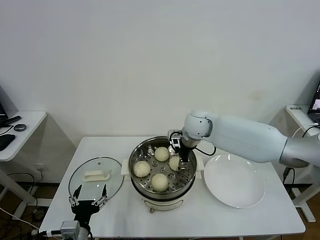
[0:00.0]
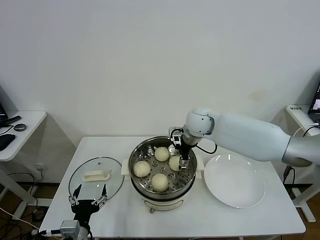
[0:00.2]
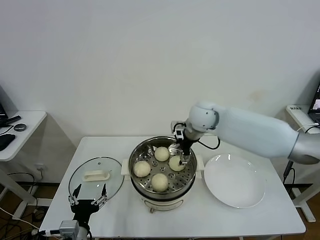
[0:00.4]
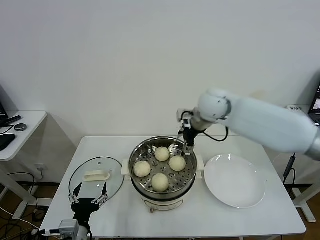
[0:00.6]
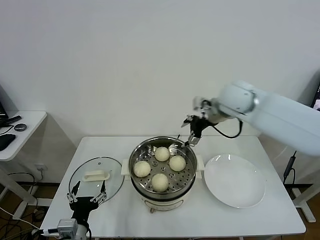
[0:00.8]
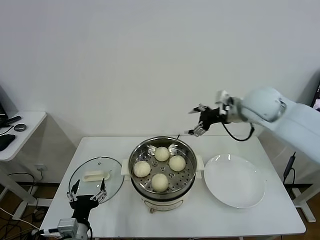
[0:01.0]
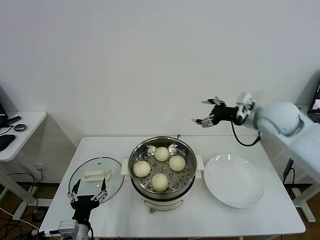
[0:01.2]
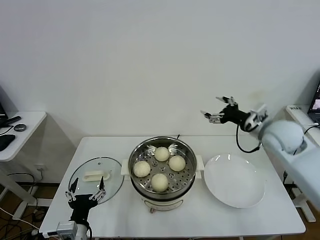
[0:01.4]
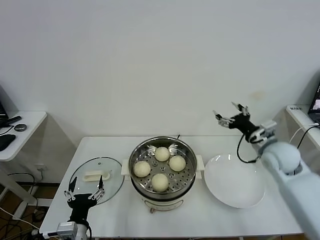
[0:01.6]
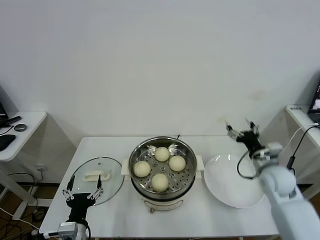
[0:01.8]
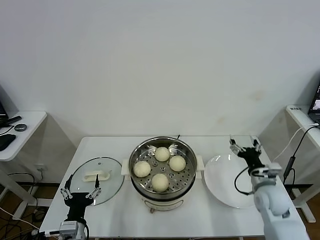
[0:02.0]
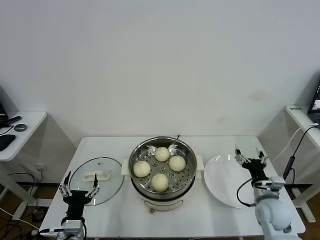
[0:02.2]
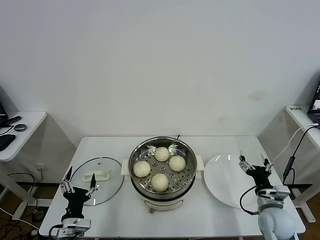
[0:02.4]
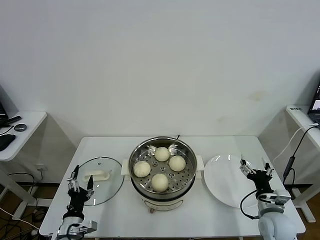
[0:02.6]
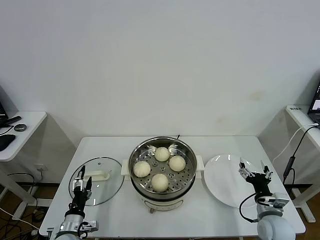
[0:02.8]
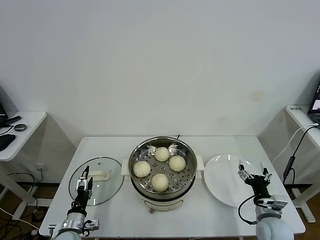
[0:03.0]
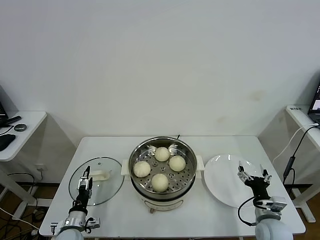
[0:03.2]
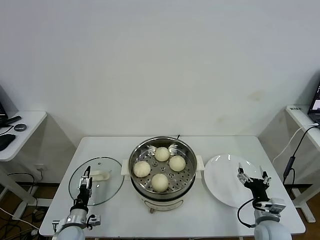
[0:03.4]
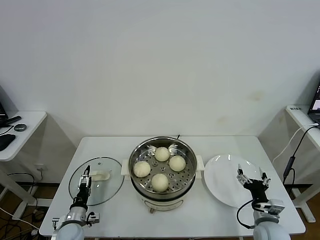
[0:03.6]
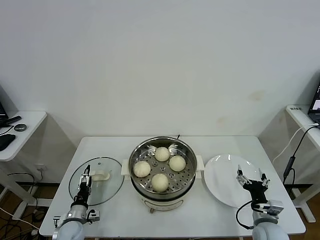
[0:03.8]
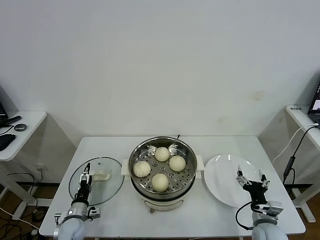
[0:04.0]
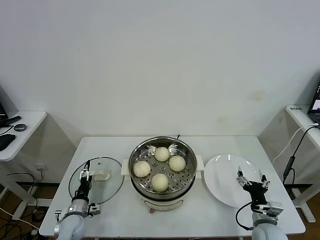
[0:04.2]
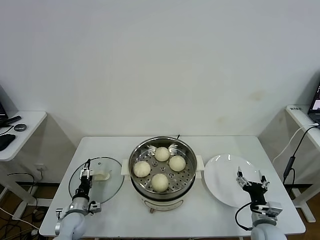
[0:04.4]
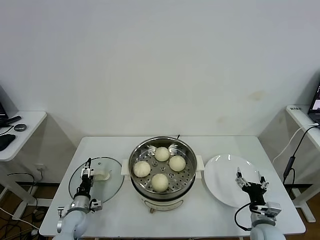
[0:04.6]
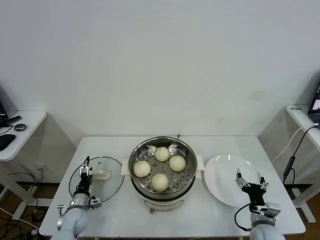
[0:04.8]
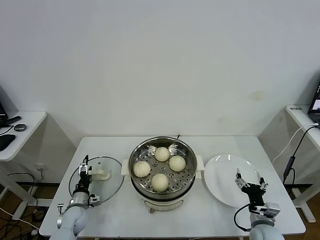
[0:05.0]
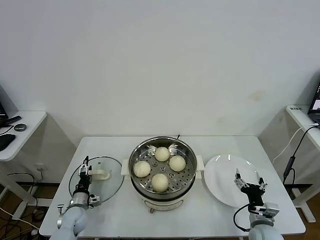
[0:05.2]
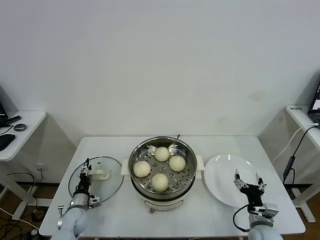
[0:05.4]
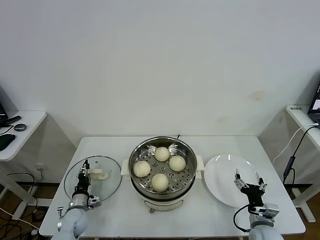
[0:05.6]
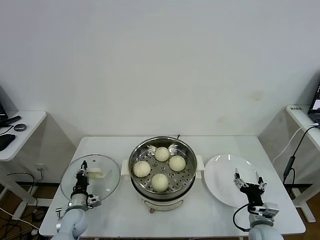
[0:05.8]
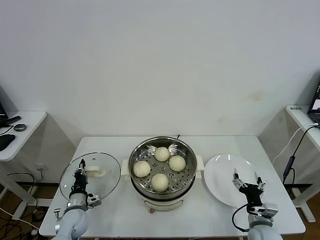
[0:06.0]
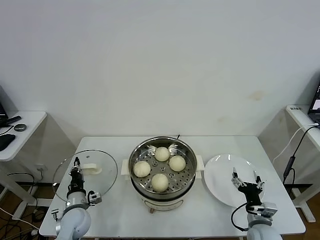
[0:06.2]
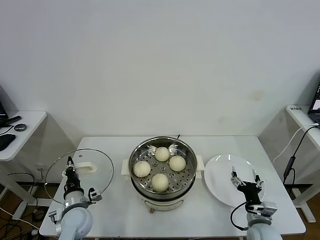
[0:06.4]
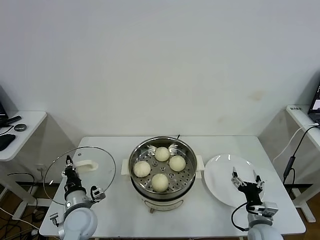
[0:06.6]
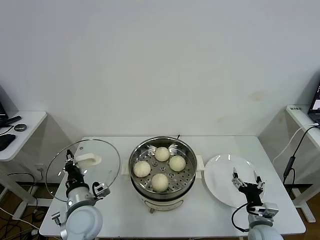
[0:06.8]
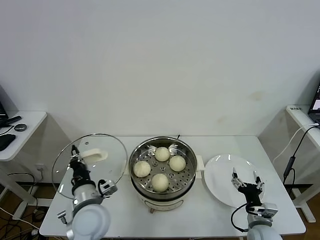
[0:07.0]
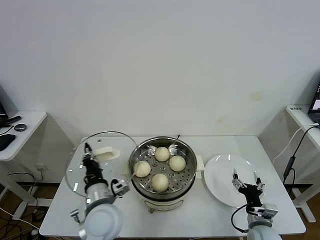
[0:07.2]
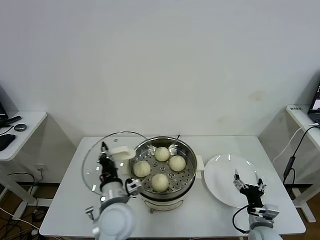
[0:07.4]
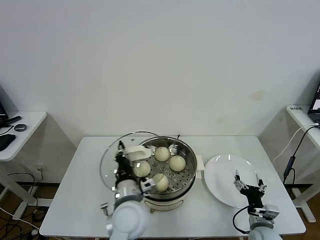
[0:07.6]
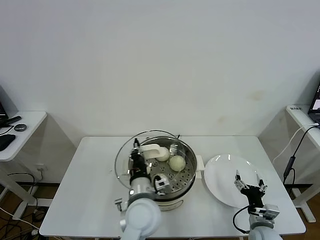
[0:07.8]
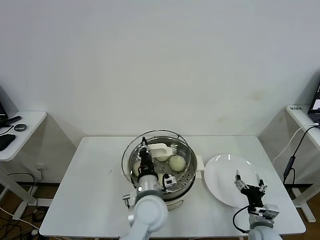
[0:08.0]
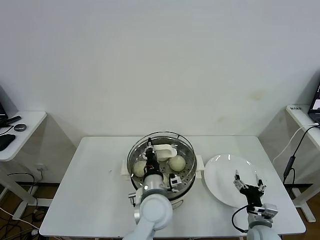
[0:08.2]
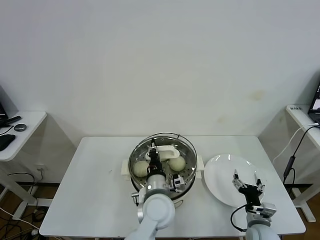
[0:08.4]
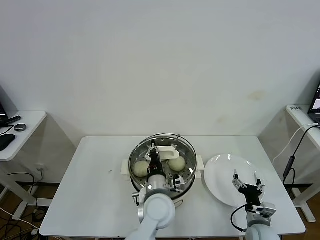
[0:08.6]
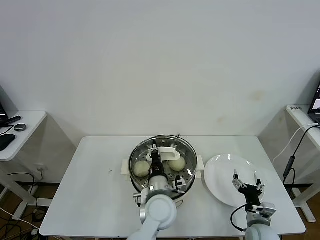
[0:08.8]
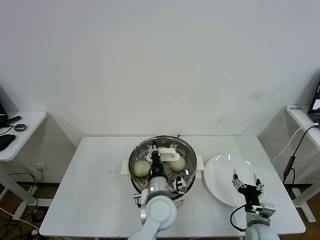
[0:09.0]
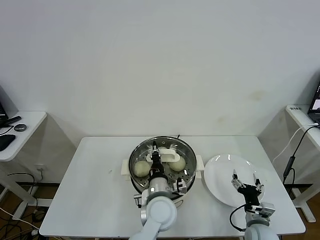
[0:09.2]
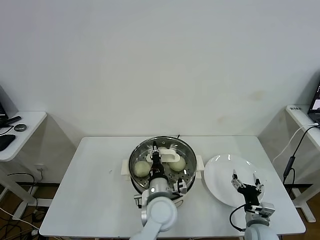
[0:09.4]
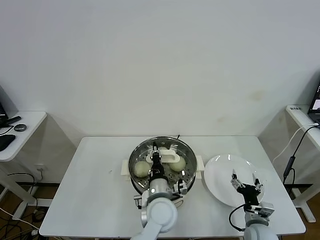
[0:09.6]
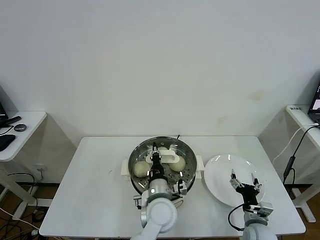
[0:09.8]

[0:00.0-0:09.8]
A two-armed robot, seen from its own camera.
Task of the whole recording: take steamed baozi put them in steamer.
Step, 0:00.6 to 0:06.0: Grasp the pot lid with left gripper.
0:00.0 to 0:01.4: The right gripper goes approximately 20 cm to the right, and opens.
0:01.4 to 0:02.8: The right gripper goes about 30 cm downward and backward; the left gripper shifts approximately 15 cm downward, to the left and forward.
0:02.8 to 0:04.2: The left gripper goes roughly 10 cm forward and downward.
0:04.2 to 0:05.6: The left gripper closes up.
0:05.6 to 0:07.0: The left gripper shifts approximately 25 cm upward and to the right, and closes.
0:07.0 to 0:08.4: The left gripper goes approximately 20 cm to the right.
0:08.4 to 0:09.8: The grippers make only small movements.

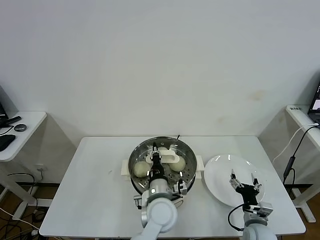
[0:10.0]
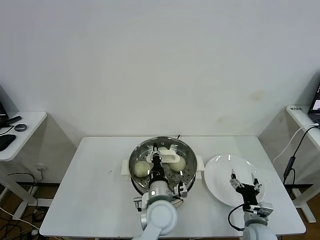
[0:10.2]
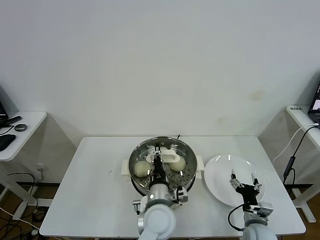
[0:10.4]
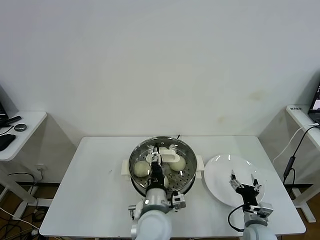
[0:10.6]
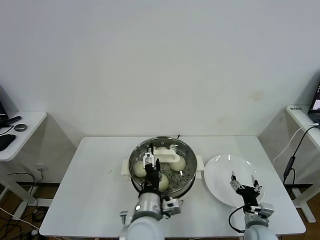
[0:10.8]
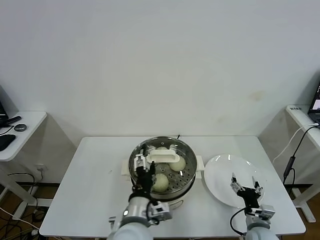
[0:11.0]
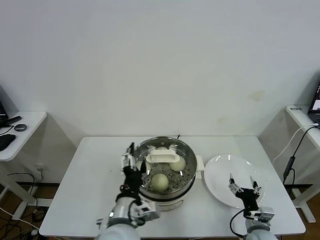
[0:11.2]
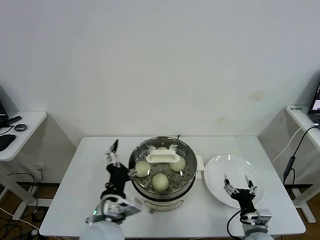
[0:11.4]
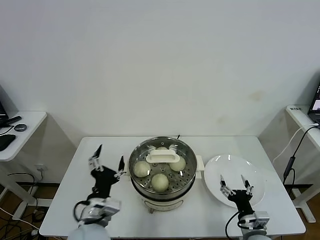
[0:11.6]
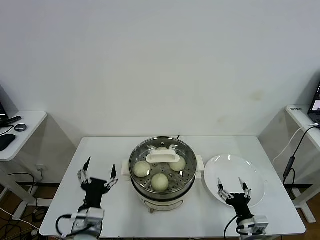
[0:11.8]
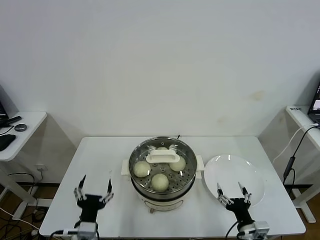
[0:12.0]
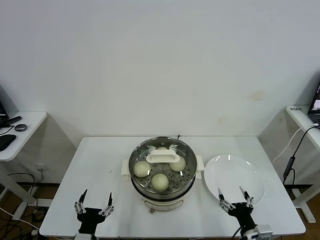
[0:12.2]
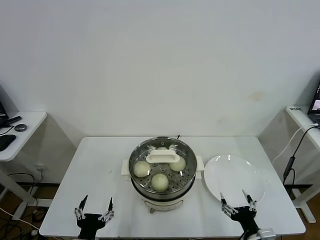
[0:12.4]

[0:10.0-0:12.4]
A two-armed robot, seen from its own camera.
Task of the whole recording: take steamed baozi put them in steamer.
0:10.0 to 0:11.2: The left gripper shifts approximately 15 cm backward, to the left and upward, and opens.
0:11.2 to 0:12.4: The left gripper is displaced to the left, downward and backward by about 20 cm. Meanwhile the right gripper moves backward, roughly 10 cm.

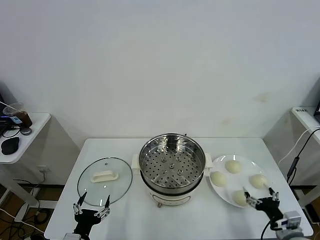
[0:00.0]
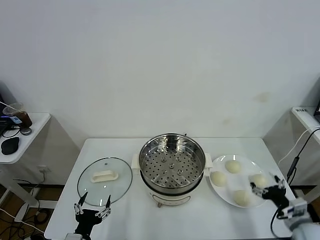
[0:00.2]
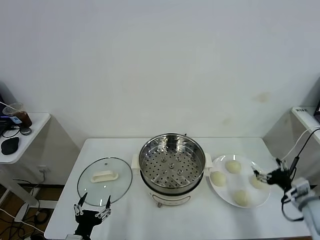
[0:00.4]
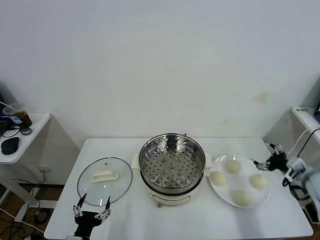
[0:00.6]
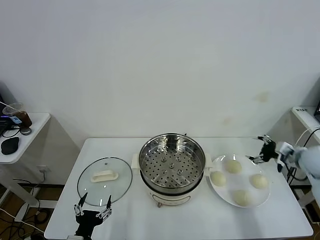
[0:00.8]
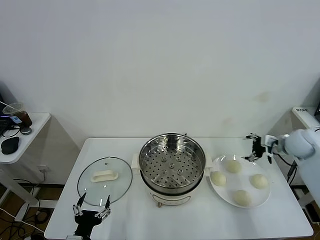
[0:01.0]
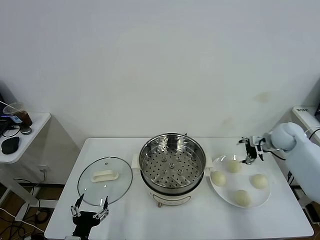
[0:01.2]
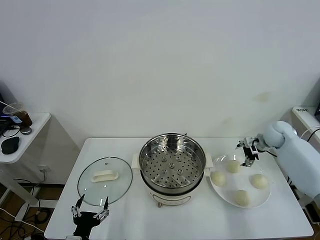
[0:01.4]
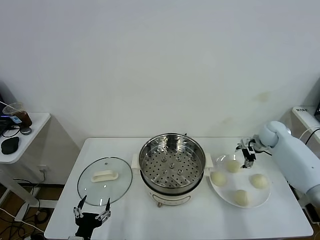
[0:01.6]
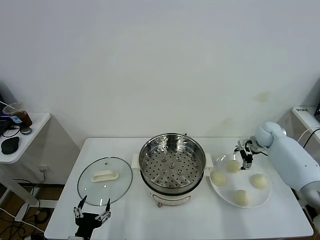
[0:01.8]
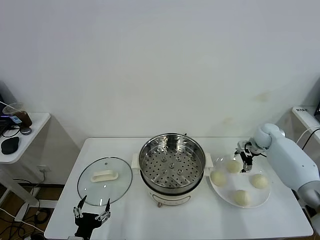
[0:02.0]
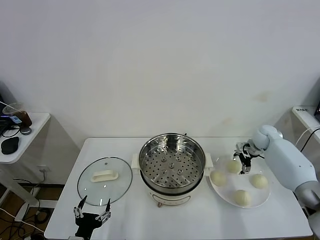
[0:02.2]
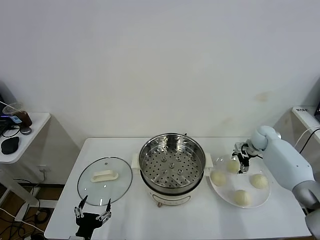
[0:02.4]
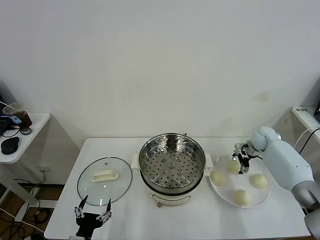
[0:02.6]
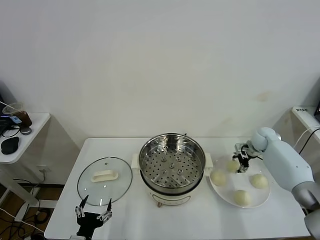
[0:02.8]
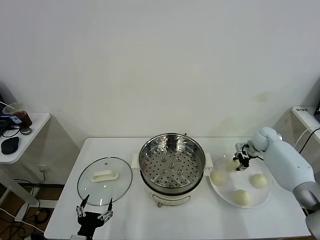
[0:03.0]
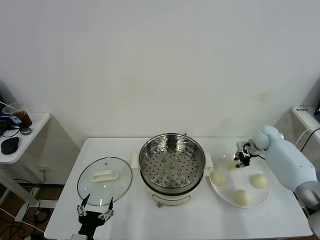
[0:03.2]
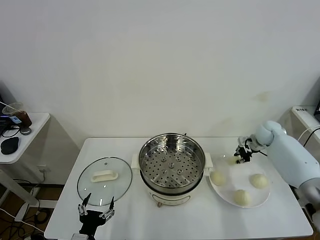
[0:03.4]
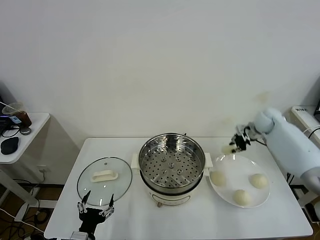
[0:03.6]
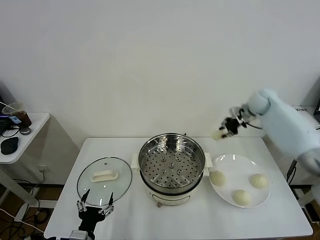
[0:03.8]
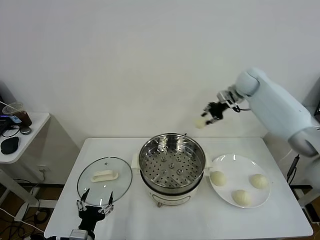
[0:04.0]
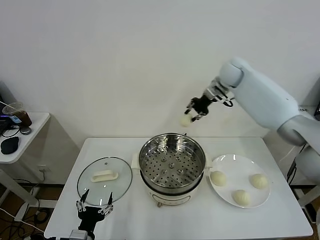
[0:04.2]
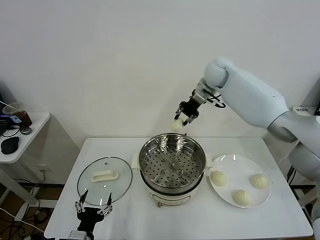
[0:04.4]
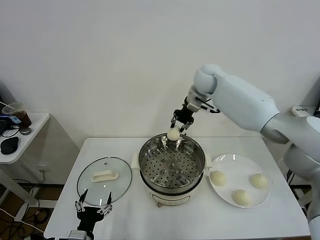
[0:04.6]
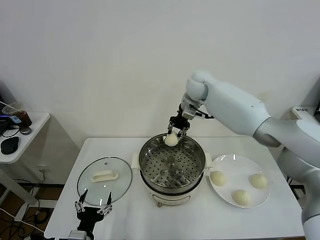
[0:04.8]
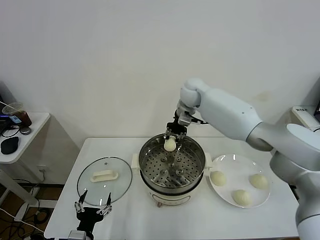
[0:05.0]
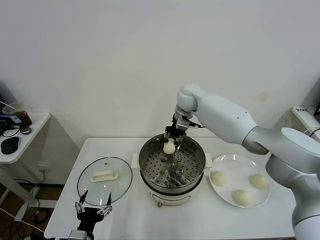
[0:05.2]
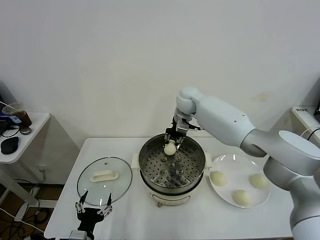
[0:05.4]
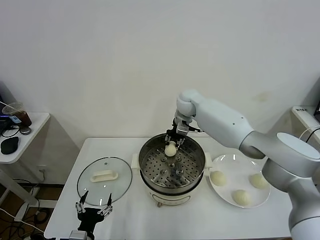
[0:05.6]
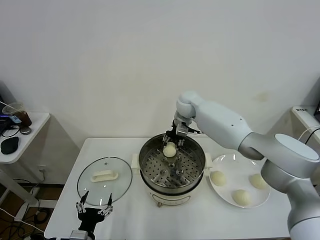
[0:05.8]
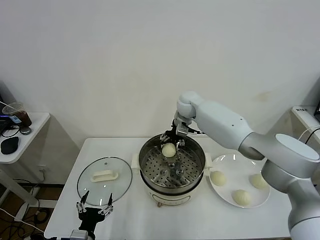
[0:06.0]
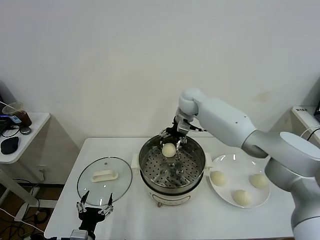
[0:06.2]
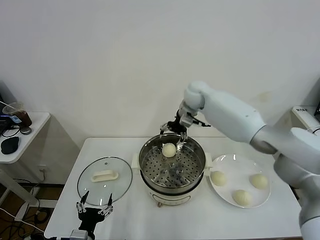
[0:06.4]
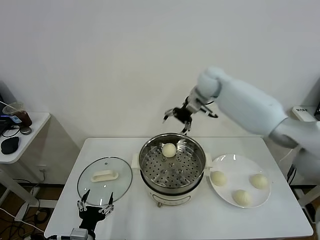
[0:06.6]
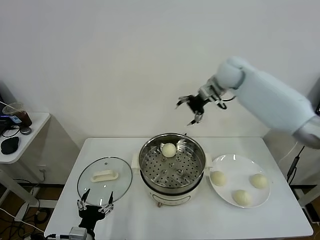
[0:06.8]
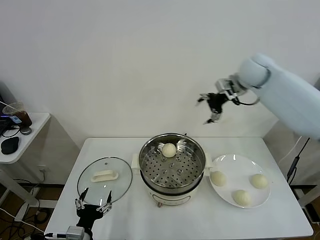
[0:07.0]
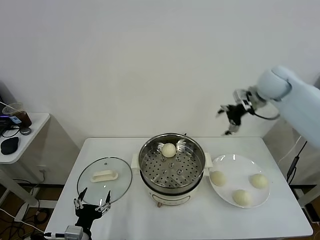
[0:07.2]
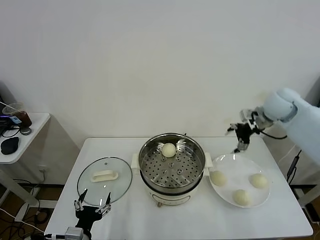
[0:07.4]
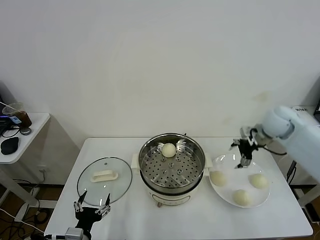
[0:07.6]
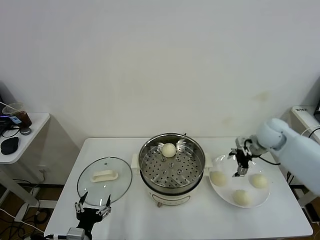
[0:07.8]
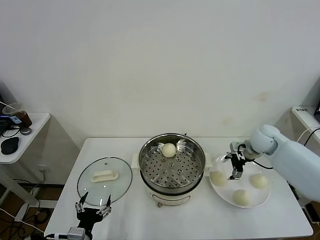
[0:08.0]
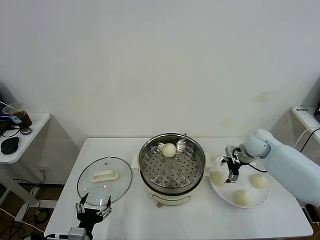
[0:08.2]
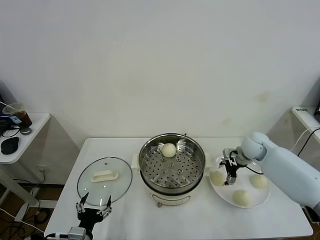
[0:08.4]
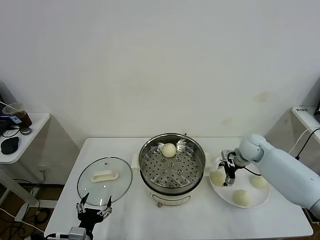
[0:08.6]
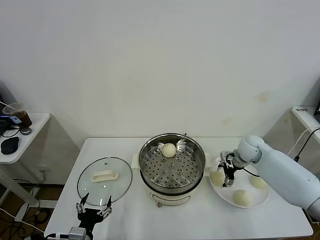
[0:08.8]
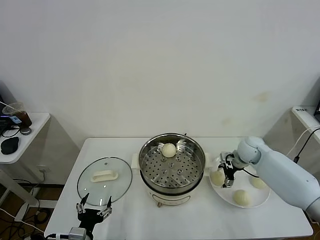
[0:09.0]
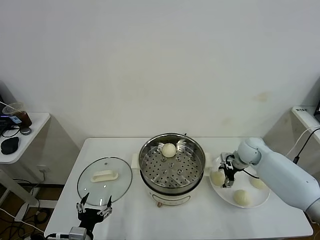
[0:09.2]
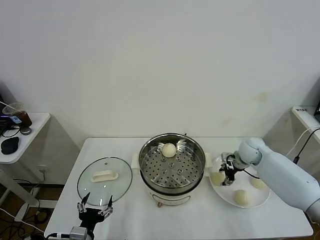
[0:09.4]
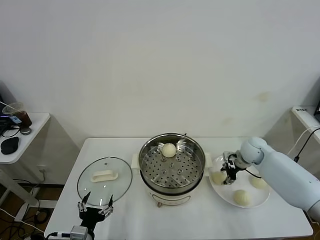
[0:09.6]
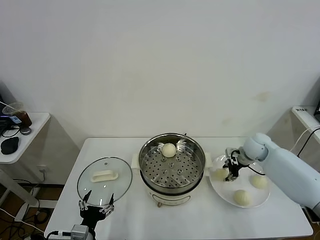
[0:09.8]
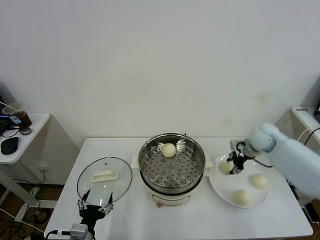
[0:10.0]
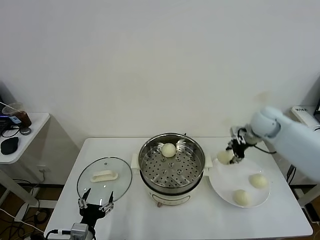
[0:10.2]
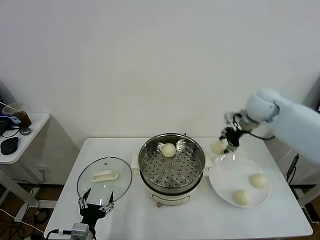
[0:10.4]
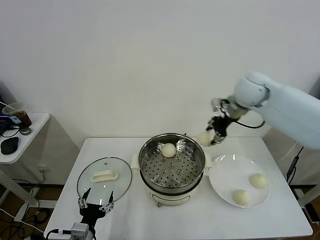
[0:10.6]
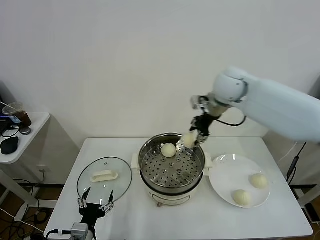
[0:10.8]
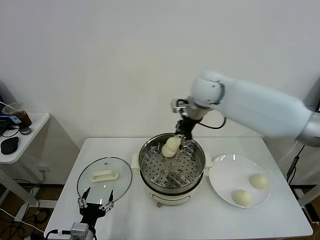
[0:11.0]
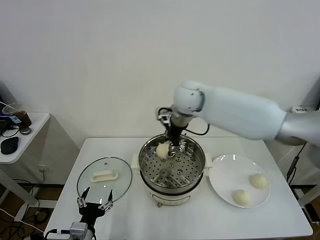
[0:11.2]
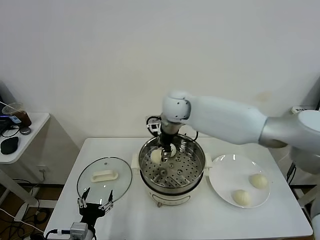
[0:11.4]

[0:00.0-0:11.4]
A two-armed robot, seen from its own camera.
Task of the whole recording: take steamed baozi put them in steamer.
Step, 0:00.0 to 0:03.0: Grasp the baozi in the plate with right gripper.
Step, 0:03.2 to 0:06.2: Place the baozi on the steamer with right gripper.
Step, 0:06.4 to 0:09.6: Grasp the baozi in the plate with right gripper.
0:01.4 to 0:02.8: The right gripper is displaced downward by some 5 cm, and closes.
0:02.8 to 0:04.2: The right gripper goes approximately 30 cm upward and to the left, and closes up.
0:04.2 to 0:05.6: The right gripper shifts approximately 15 cm to the left and downward.
0:05.6 to 0:07.2: The right gripper heads to the right and upward, covering some 25 cm, and opens.
0:07.2 to 0:08.6: The right gripper is displaced downward by about 25 cm.
0:08.6 to 0:10.0: The right gripper is displaced upward by roughly 5 cm, and closes up.
0:10.0 to 0:11.4: The right gripper is displaced to the left by about 30 cm.
